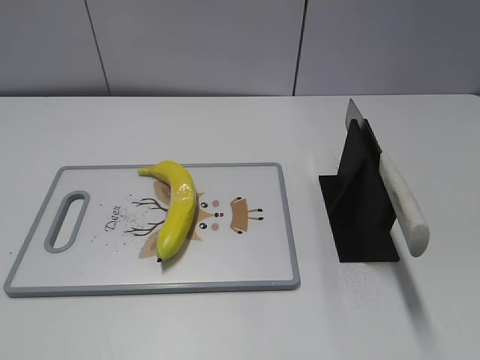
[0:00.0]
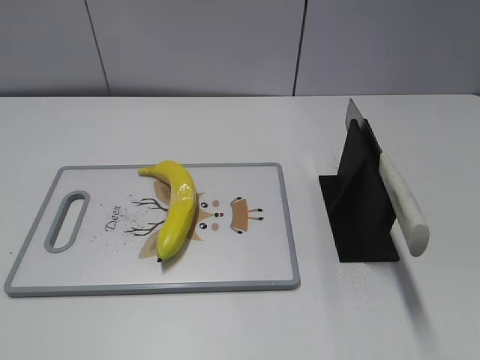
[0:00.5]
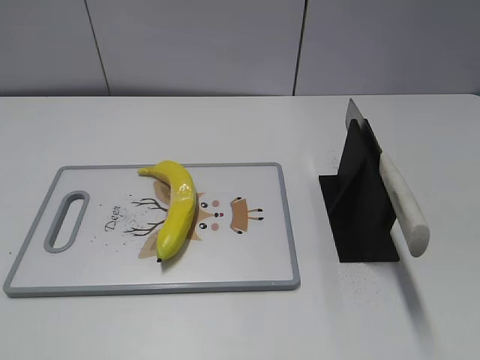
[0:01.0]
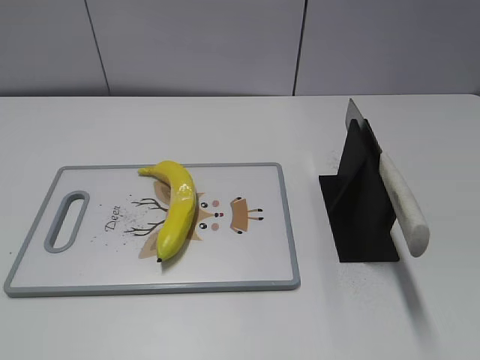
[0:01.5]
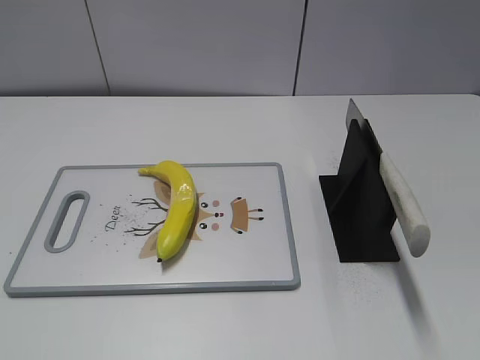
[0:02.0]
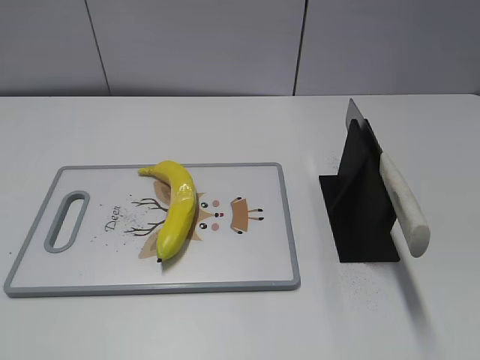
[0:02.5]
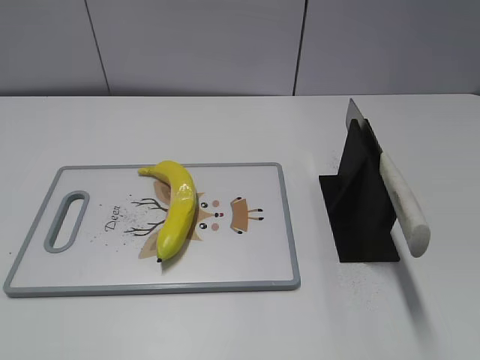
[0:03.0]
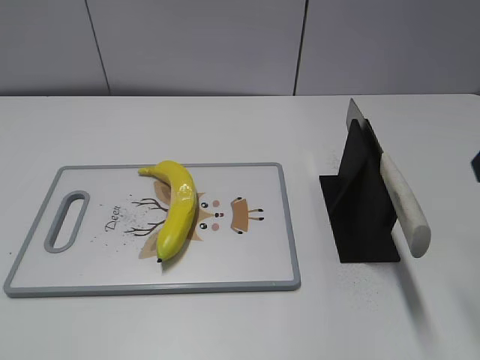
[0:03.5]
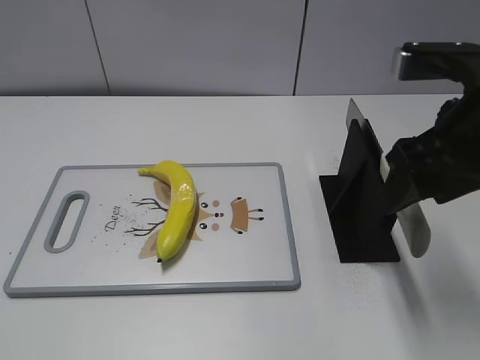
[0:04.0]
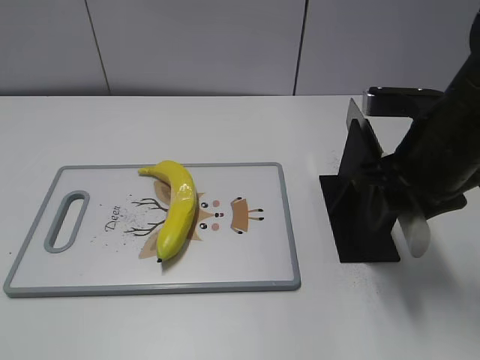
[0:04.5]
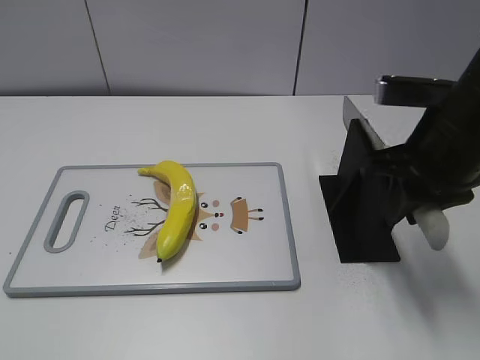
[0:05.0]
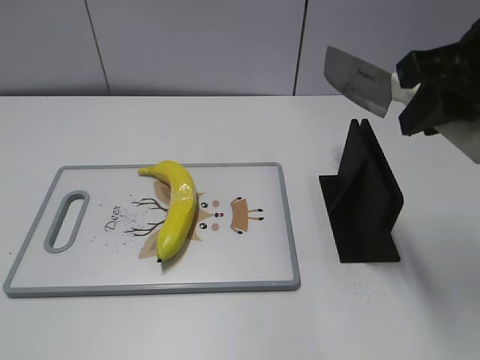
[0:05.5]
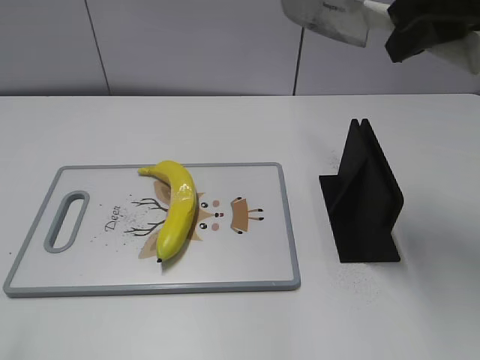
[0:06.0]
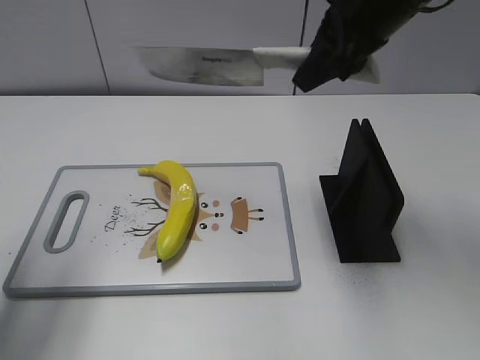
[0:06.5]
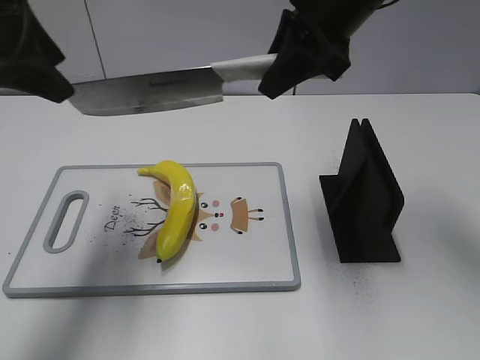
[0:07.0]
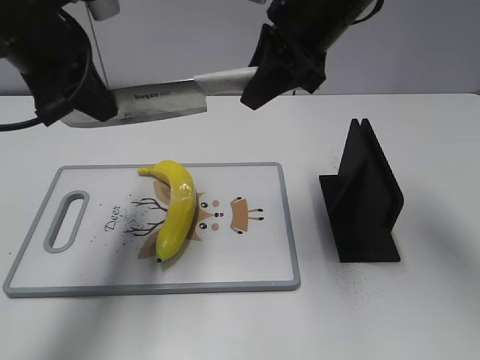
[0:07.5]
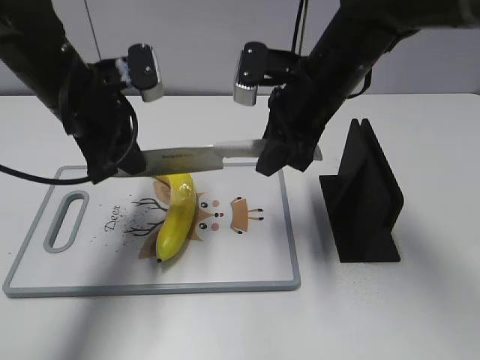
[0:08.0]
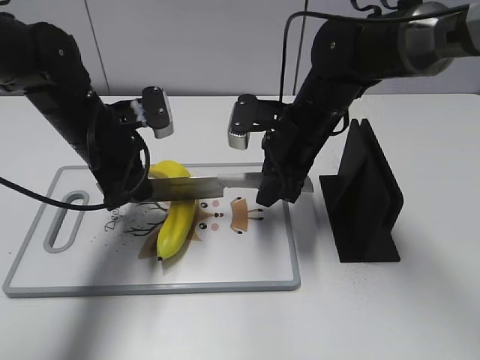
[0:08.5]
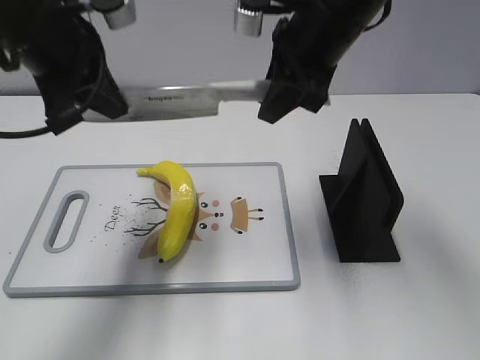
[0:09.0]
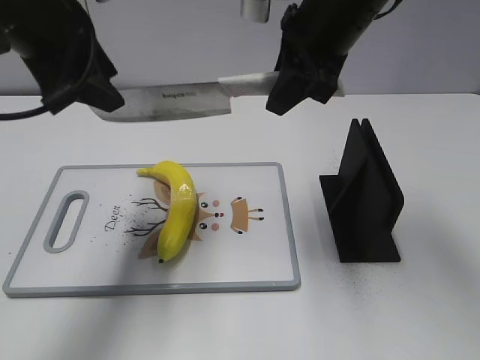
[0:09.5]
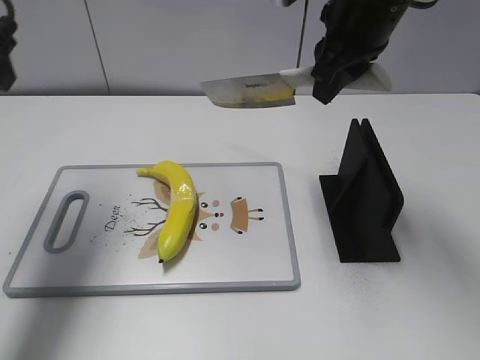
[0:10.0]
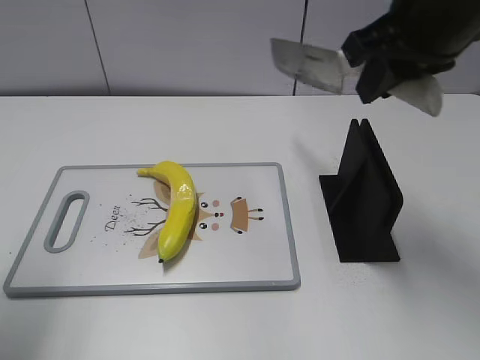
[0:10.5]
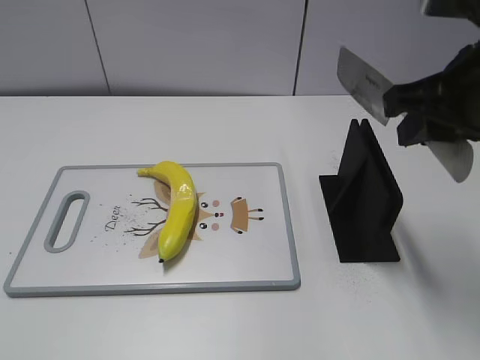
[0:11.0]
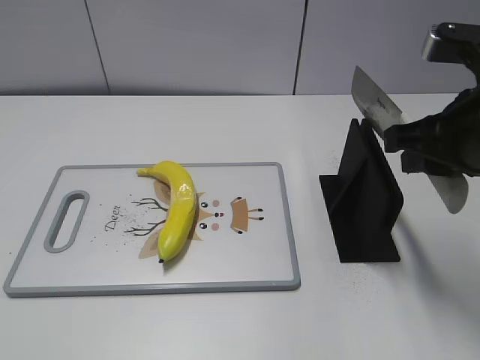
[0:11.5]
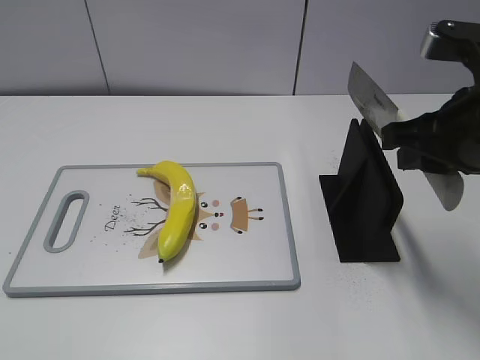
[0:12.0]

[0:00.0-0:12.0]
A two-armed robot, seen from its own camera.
Task of the whole recording: cut plastic banana.
Step, 0:00.0 to 0:05.5: Grab the knife handle with your right hand.
Step, 0:06.0 to 0:09.0: Lift the knife with your right hand.
Step, 0:09.5 to 0:10.5: Cut the banana with your right hand.
0:02.0 to 0:04.0: The right gripper heads forward, covering about 25 cm.
0:04.0 to 0:06.0: The right gripper is displaced upward and forward by approximately 10 cm, and closes.
0:06.0 to 0:08.0: The left gripper heads forward and to the right, covering some 30 cm, and closes up. Meanwhile the right gripper goes about 20 cm downward, to the left and forward.
0:08.0 to 0:10.0: The left gripper goes roughly 15 cm upward and to the left, and opens up. The right gripper moves upward, approximately 10 cm.
0:10.0 to 0:12.0: The right gripper goes some 15 cm backward and to the right. The left gripper goes some 35 cm backward.

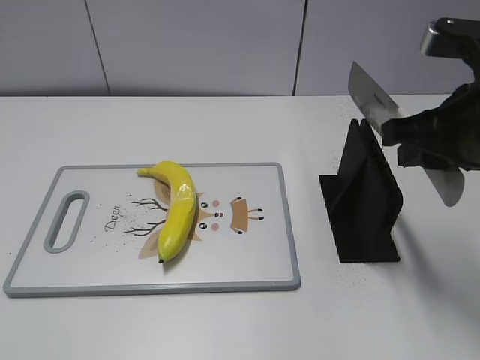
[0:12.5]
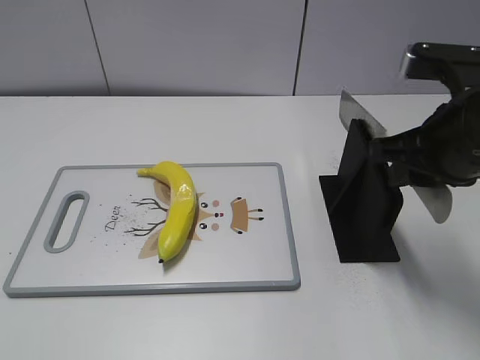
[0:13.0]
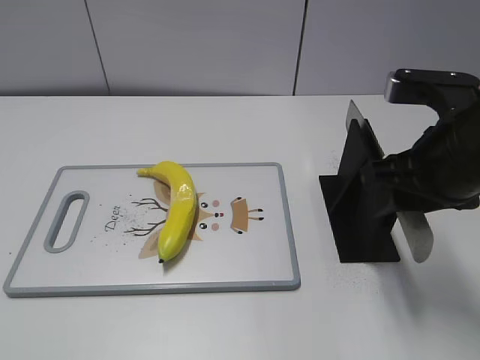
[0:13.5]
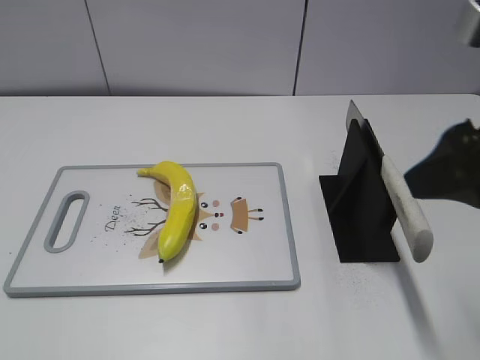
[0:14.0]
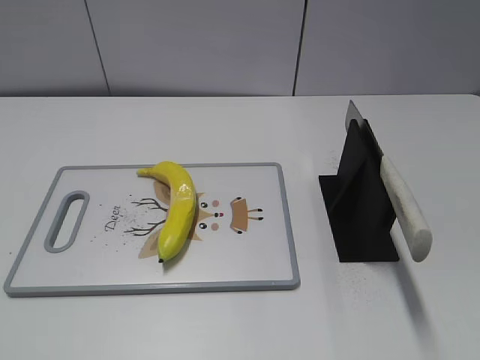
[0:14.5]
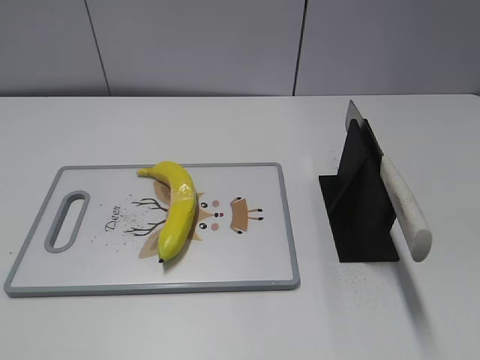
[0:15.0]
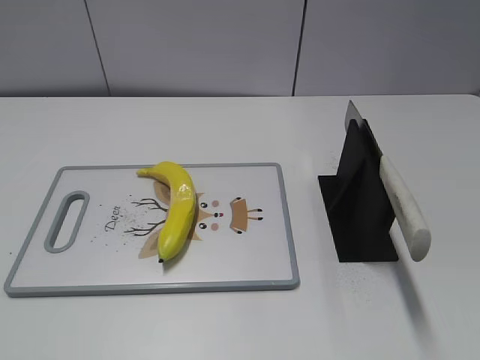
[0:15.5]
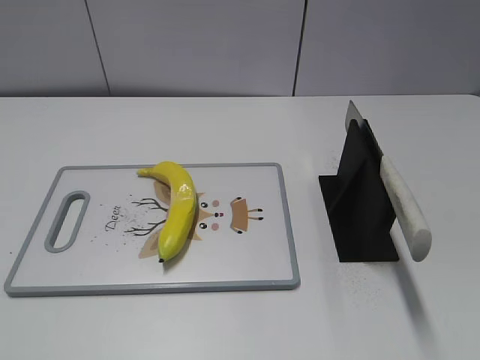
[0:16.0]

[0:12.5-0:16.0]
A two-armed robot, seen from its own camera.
Task of the whole recording: cut plastic banana.
Step, 0:12.5 to 0:16.0: Place the knife on the storage rack with your right hand.
0:12.5 to 0:14.5: The right gripper moves backward, about 20 cm, and opens its fingers.
